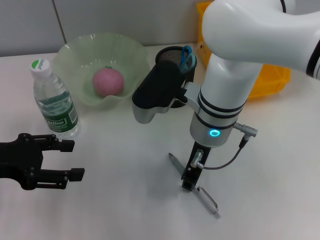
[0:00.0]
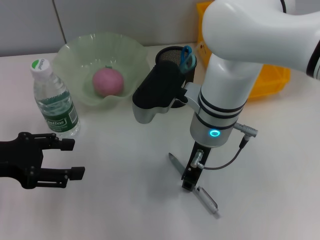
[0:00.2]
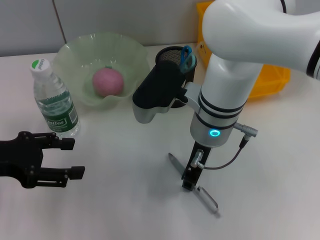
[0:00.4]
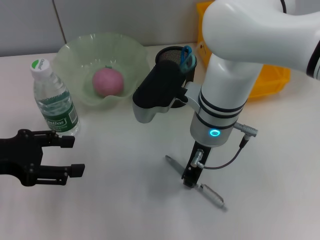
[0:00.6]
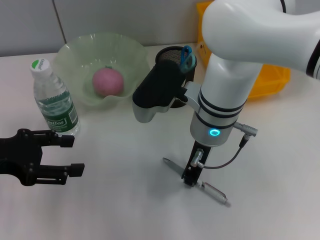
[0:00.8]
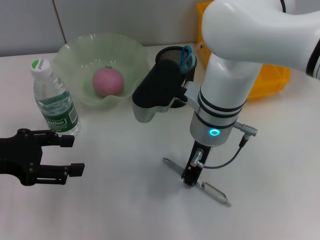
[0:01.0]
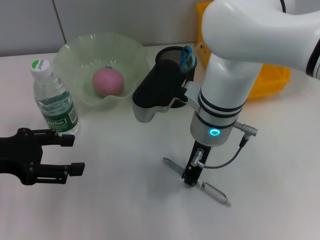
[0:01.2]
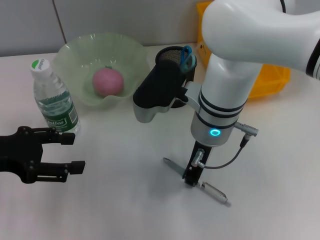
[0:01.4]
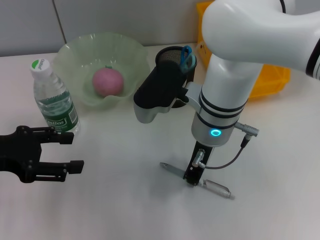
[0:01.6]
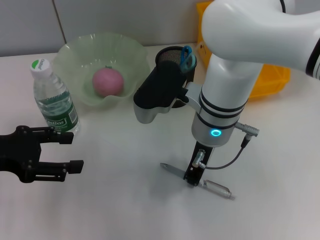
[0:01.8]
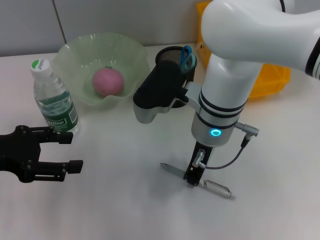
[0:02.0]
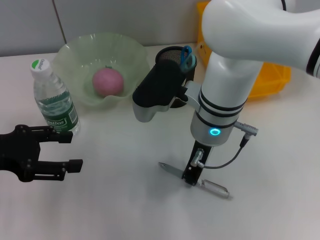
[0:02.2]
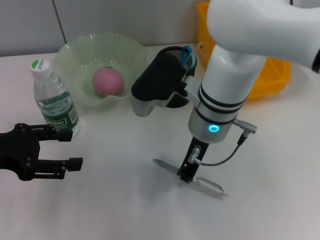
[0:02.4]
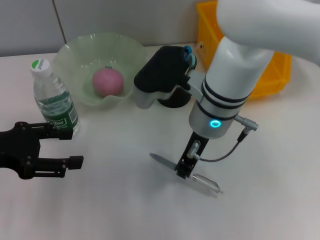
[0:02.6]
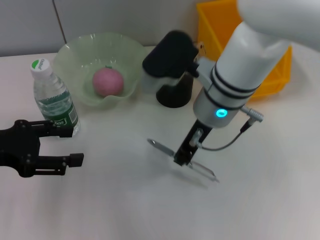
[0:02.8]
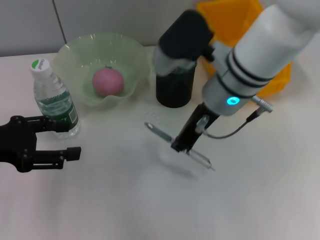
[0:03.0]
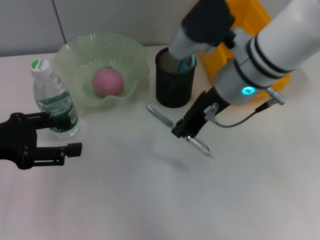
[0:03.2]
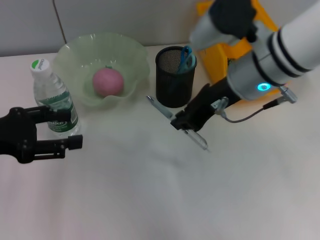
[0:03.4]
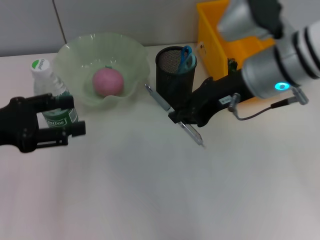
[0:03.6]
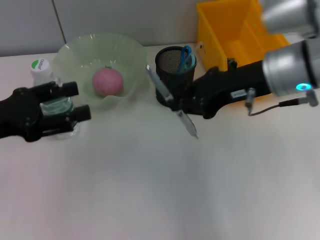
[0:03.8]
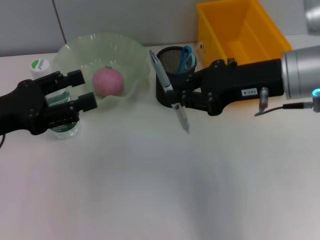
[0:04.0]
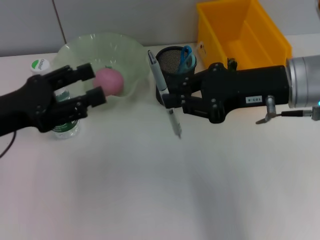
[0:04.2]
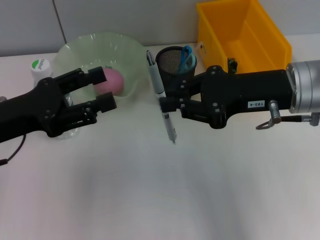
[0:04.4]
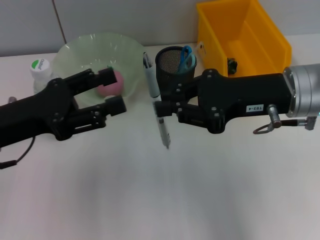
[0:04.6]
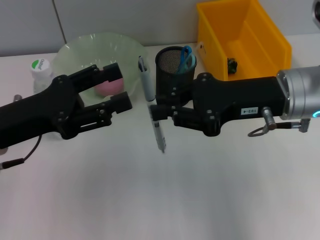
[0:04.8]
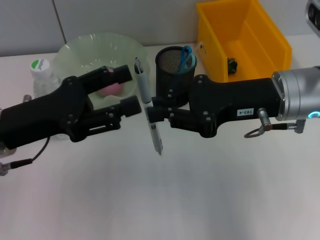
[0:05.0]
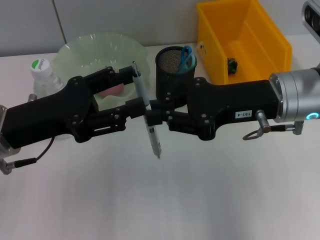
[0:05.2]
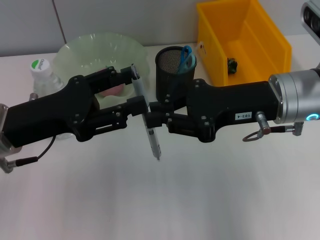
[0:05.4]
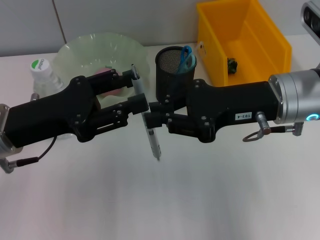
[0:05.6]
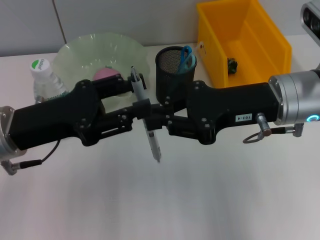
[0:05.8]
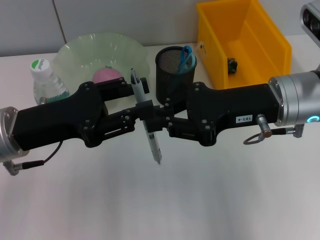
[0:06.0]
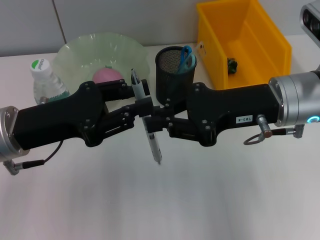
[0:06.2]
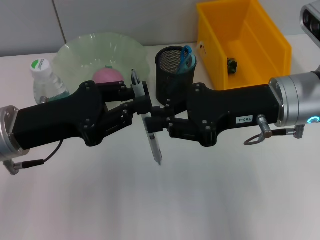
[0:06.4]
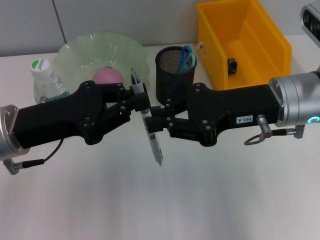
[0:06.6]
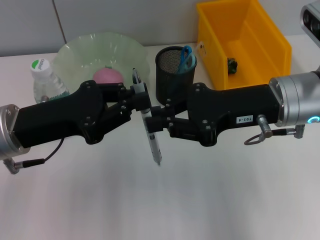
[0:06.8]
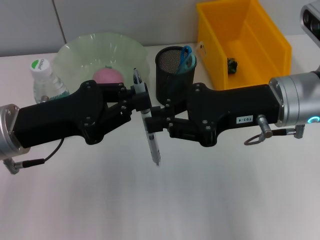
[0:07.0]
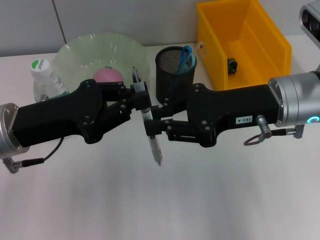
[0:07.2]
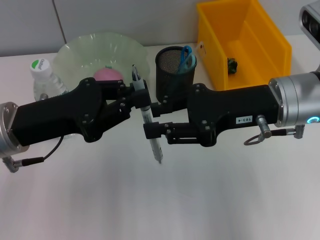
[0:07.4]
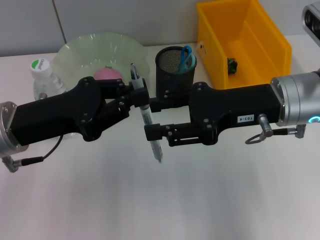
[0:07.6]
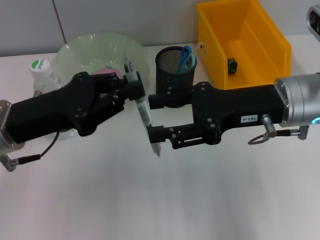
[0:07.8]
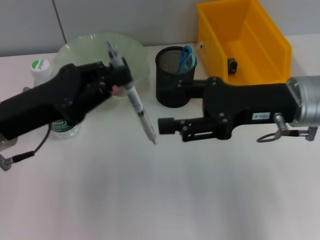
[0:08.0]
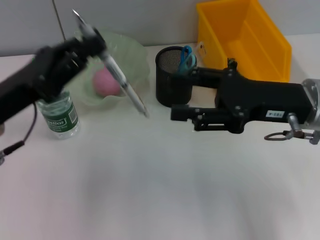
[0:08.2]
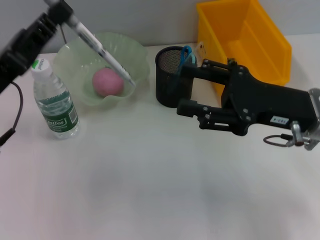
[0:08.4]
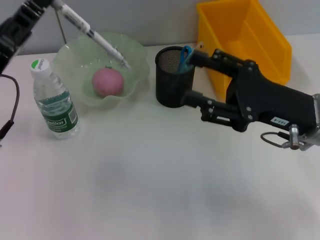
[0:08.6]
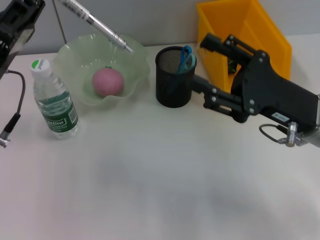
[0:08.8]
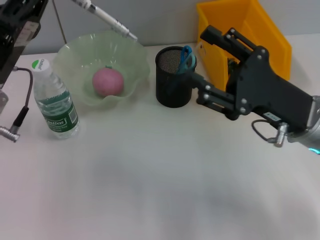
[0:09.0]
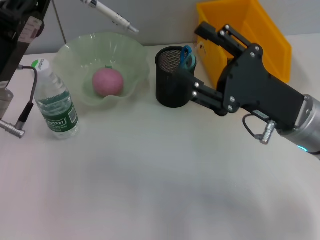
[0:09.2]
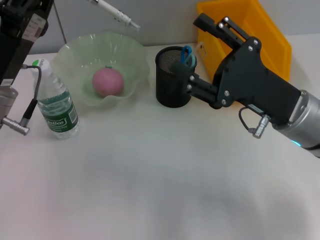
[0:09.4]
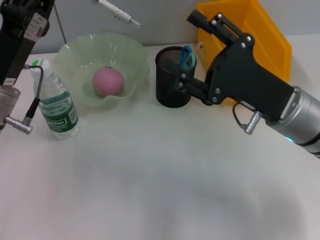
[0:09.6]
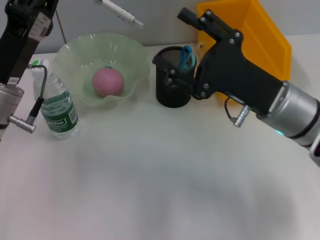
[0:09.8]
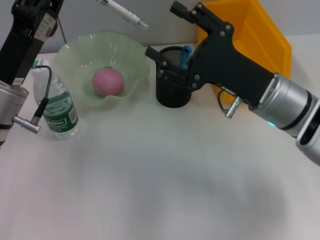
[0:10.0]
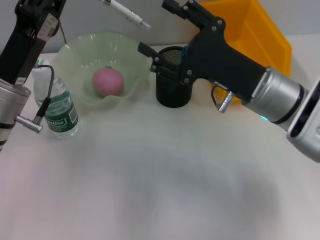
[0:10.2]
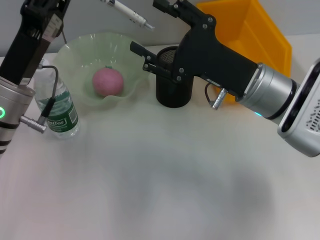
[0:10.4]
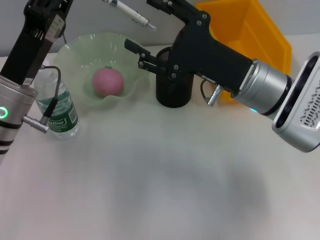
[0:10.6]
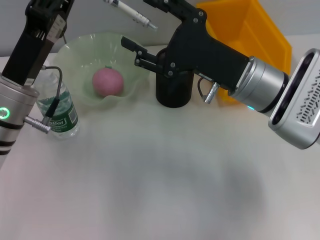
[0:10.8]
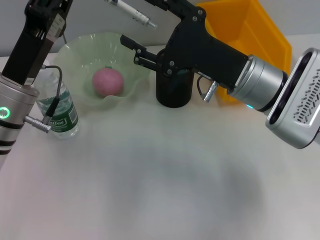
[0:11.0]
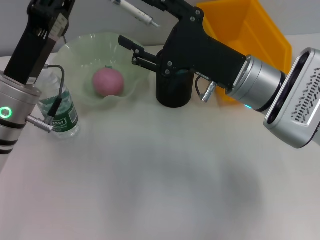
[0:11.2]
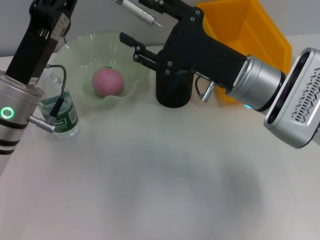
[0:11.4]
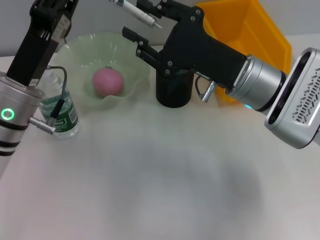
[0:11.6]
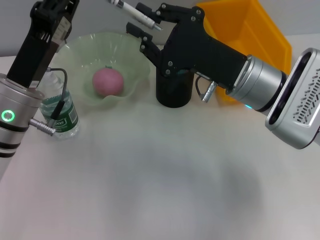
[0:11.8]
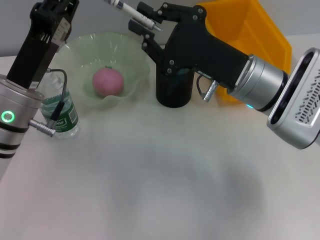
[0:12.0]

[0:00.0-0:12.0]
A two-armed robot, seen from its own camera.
Step, 0:02.0 to 0:07.0: Pass the gray spring-action pen from the right hand to the left hand.
0:00.0 to 0:01.6: The right gripper closes up.
0:01.6 to 0:03.0: The right gripper shifts by approximately 5 cm.
0:03.0 to 0:04.4: The right gripper travels to the right by about 10 cm.
0:06.0 to 0:07.6: The left gripper closes.
0:07.6 to 0:09.0: The right gripper travels downward by about 5 cm, and opens up.
0:09.0 to 0:10.4: The right gripper moves forward and to the left, some 5 cm.
0:10.4 to 0:12.0: The right gripper closes up.

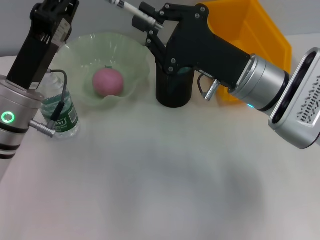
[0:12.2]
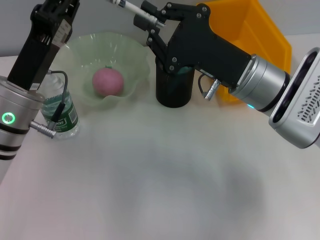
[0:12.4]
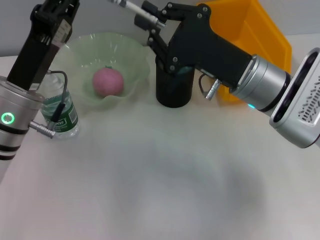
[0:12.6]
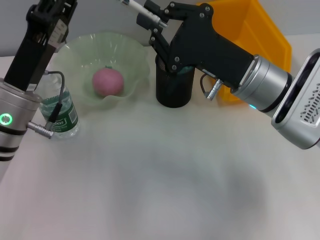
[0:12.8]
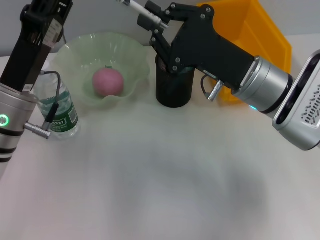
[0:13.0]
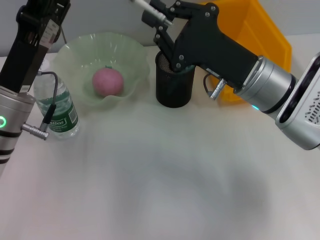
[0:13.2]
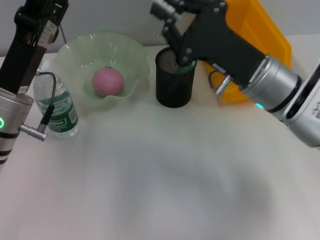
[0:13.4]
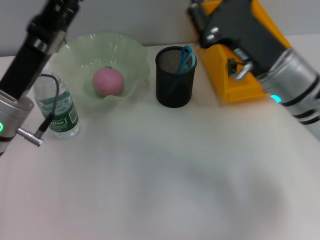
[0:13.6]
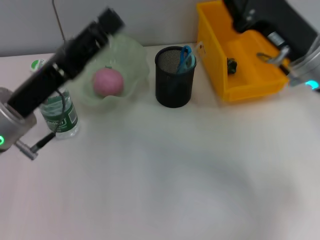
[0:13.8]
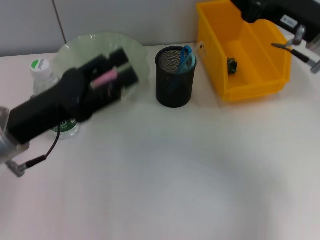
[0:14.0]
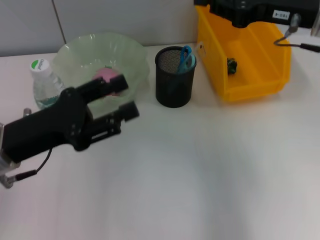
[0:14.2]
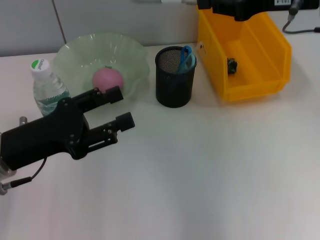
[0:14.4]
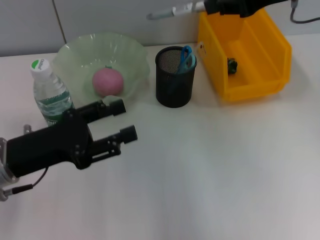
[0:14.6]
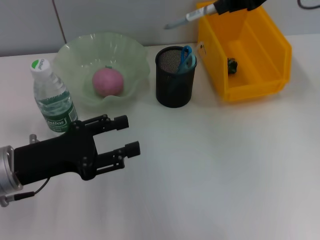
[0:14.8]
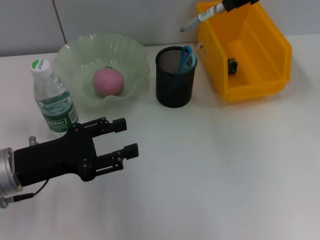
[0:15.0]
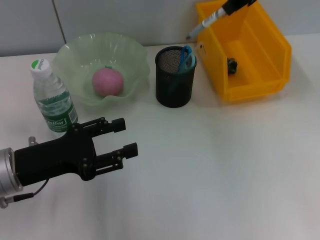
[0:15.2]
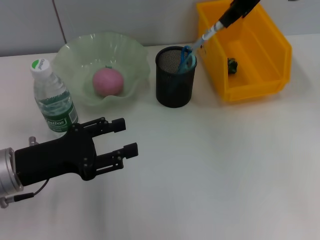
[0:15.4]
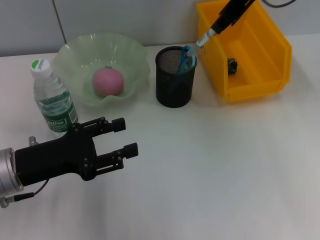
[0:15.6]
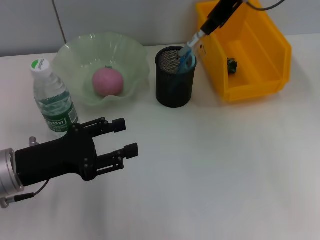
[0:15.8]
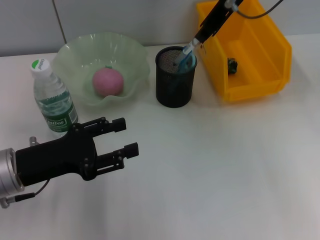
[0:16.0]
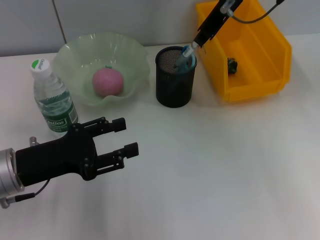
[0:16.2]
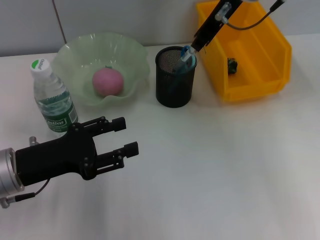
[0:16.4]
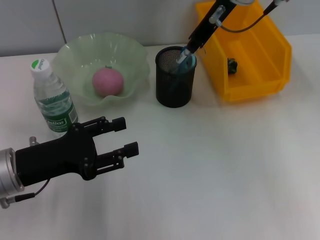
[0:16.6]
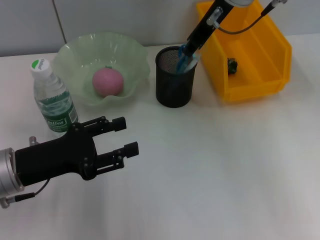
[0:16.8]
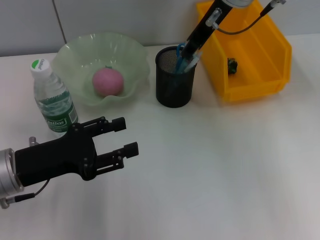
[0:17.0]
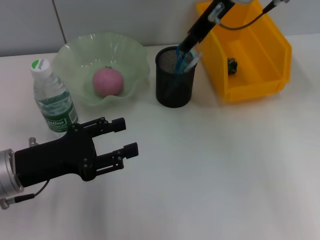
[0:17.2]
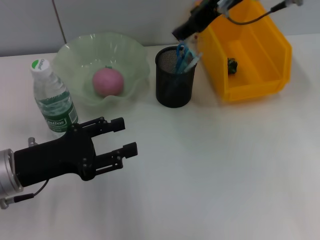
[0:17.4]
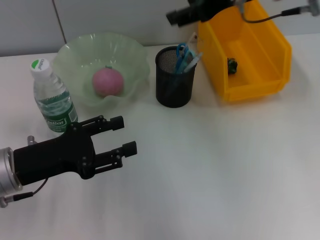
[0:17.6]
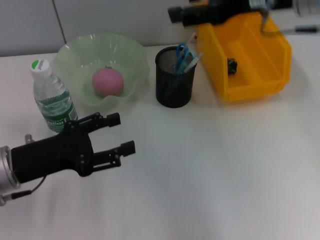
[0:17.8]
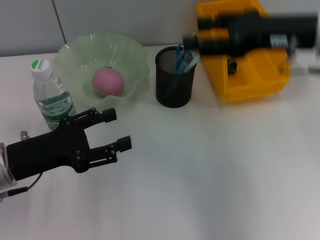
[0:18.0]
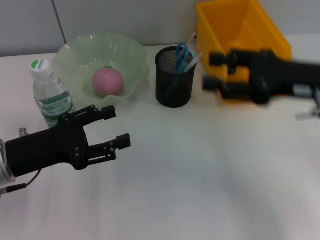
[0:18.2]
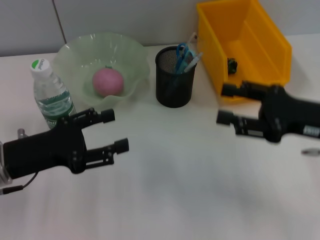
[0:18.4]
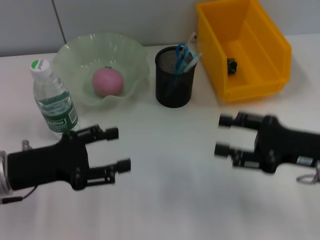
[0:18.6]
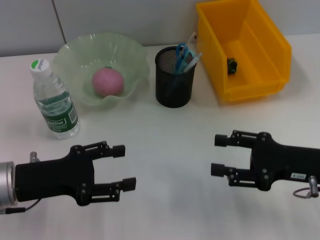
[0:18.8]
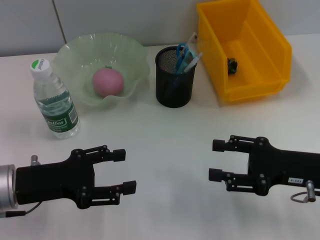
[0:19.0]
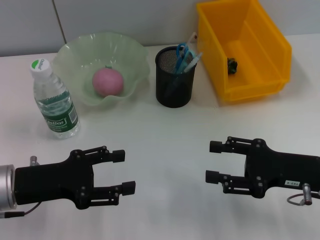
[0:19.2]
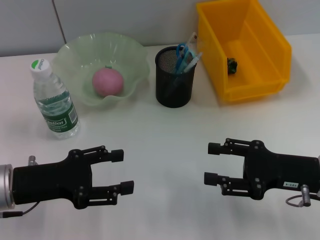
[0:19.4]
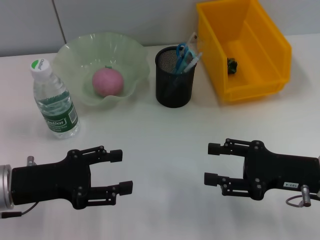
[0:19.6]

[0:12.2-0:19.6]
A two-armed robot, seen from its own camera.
Step, 0:13.0 to 0:17.0: Place the gray spring-action pen into the pen holder with the right hand.
0:12.2 to 0:13.6: The left gripper opens up.
0:13.6 to 0:15.2: The right gripper moves upward, some 20 cm; the left gripper moves about 5 cm.
0:15.2 to 0:16.6: The right gripper shifts some 10 cm downward and to the left.
0:16.6 to 0:18.2: The right gripper is displaced backward, to the right and downward by some 25 cm, and opens up.
0:18.2 to 0:19.6: The right gripper travels downward by some 10 cm.

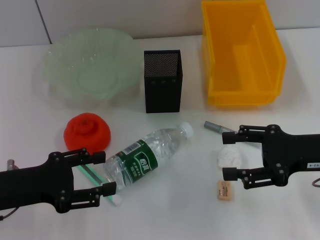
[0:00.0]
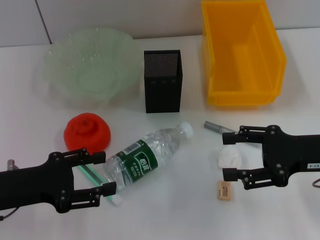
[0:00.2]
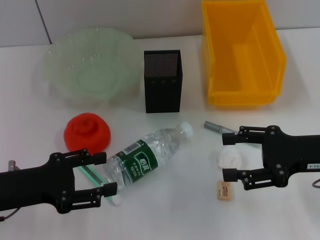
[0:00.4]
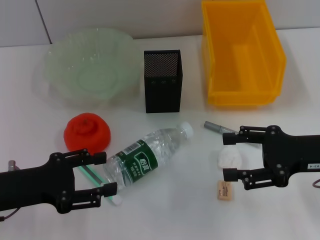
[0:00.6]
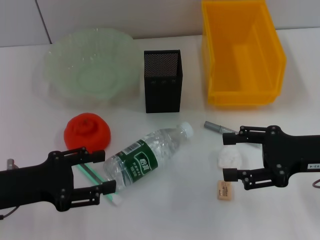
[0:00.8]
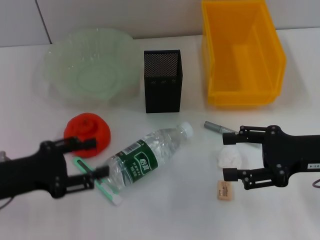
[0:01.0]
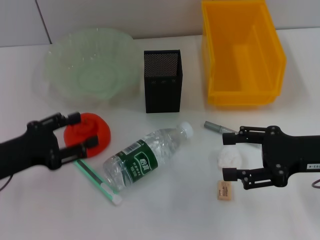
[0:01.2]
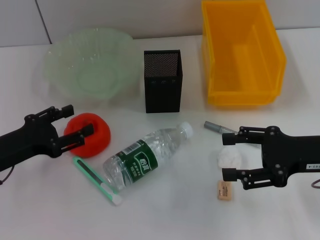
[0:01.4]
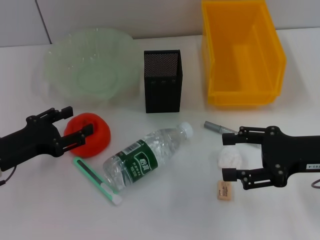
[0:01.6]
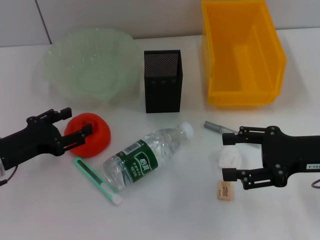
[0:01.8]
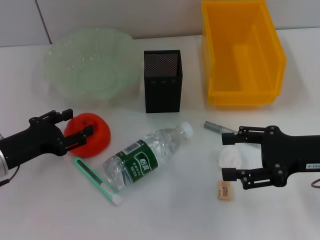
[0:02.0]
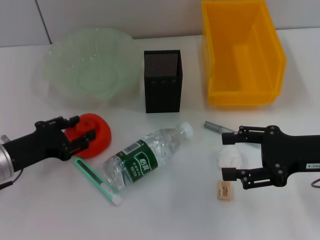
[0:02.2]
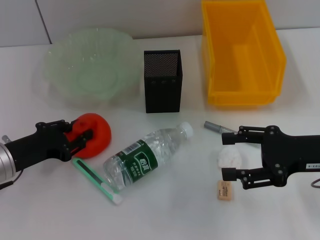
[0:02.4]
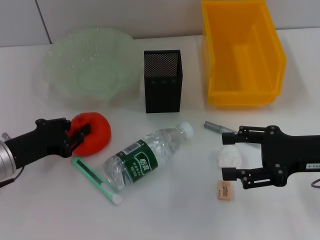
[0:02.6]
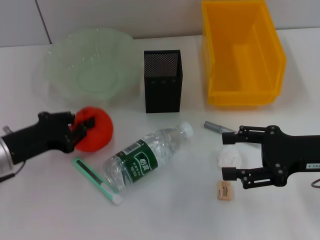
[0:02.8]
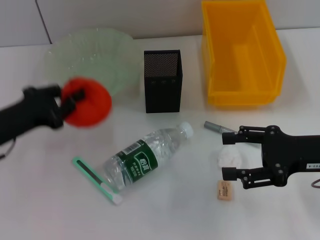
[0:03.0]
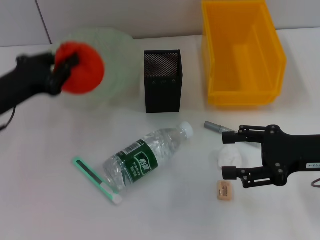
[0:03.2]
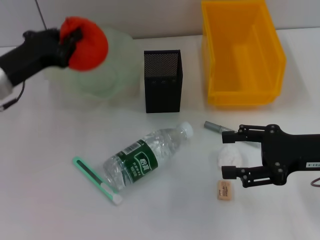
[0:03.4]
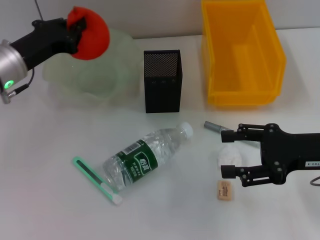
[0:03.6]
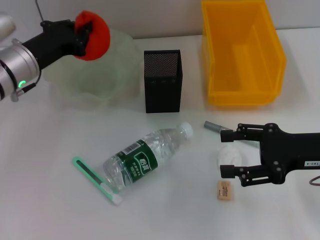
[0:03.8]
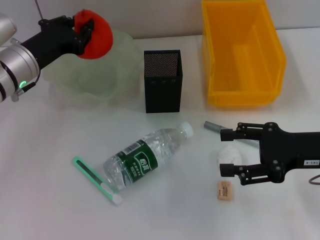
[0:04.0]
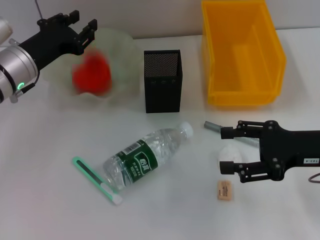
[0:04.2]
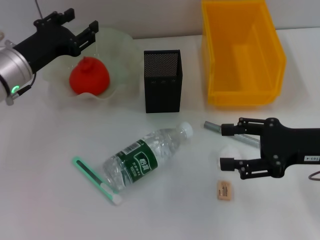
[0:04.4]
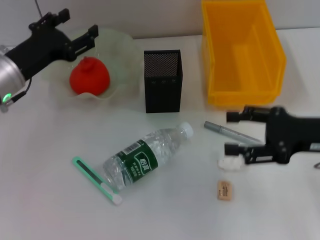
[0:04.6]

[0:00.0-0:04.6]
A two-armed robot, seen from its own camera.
Step, 0:00.0 to 0:02.4: Grab the orange with the left hand.
Step, 0:02.8 to 0:04.0: Place the orange into the fruit bowl with the left hand.
0:01.6 to 0:03.0: The left gripper closes its fingers.
0:03.0 to 0:04.6: The left gripper travels forward by roughly 5 cm, and opens up.
